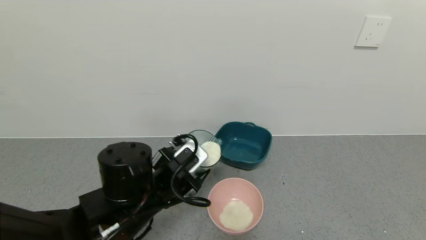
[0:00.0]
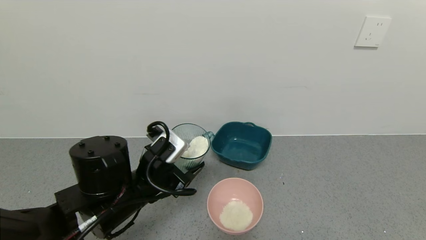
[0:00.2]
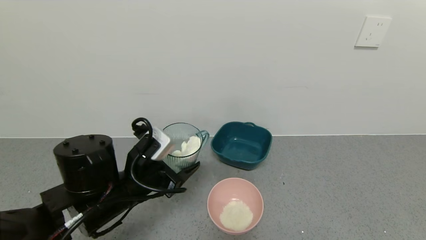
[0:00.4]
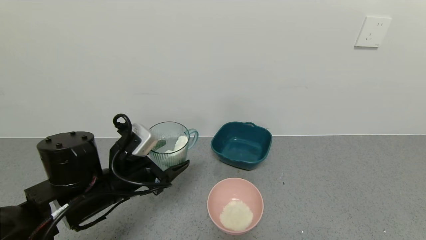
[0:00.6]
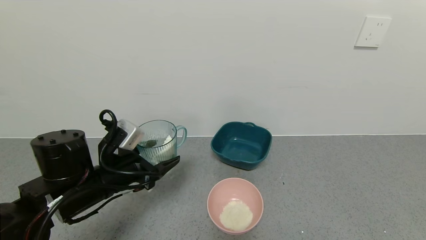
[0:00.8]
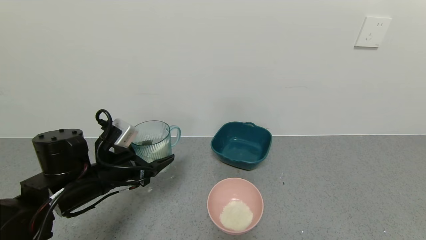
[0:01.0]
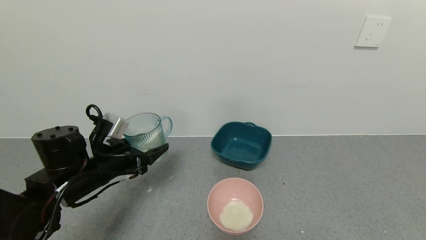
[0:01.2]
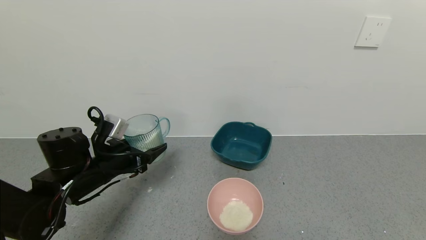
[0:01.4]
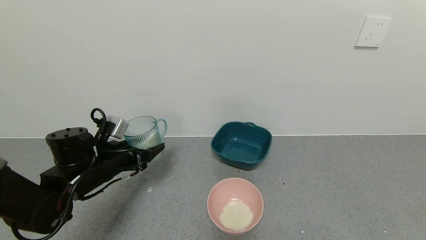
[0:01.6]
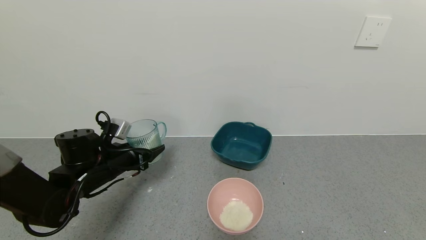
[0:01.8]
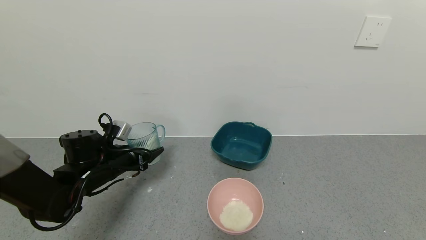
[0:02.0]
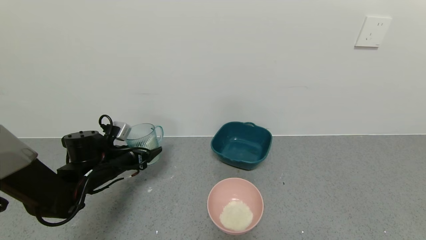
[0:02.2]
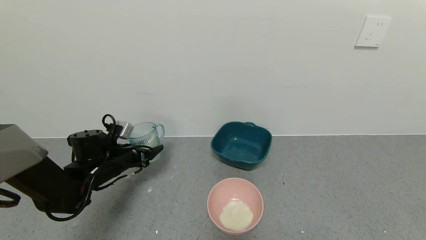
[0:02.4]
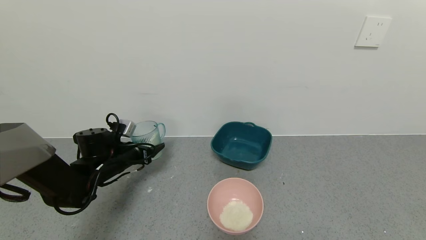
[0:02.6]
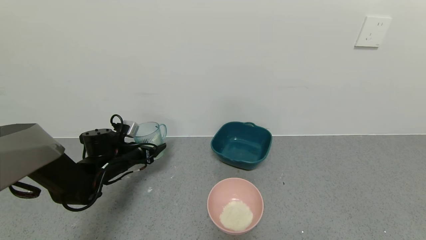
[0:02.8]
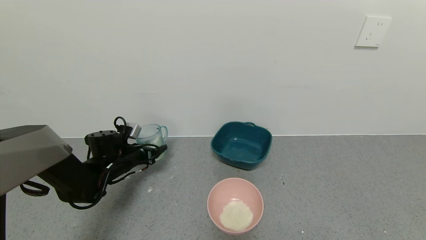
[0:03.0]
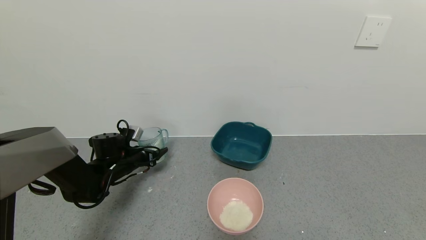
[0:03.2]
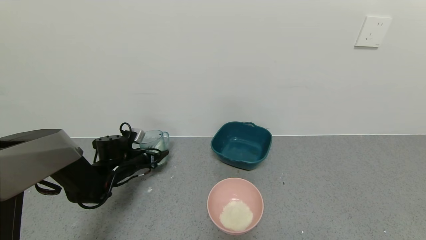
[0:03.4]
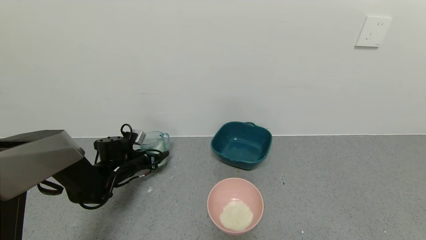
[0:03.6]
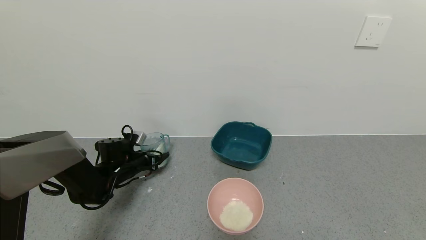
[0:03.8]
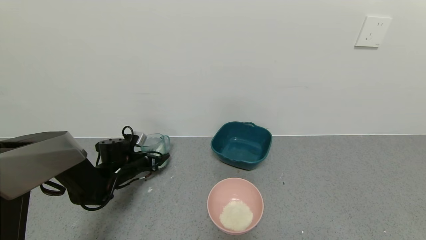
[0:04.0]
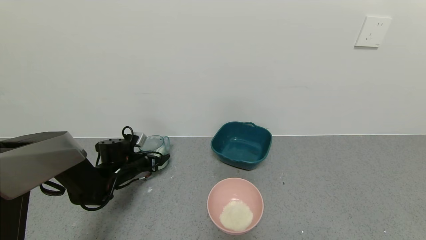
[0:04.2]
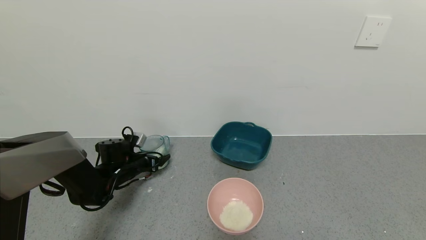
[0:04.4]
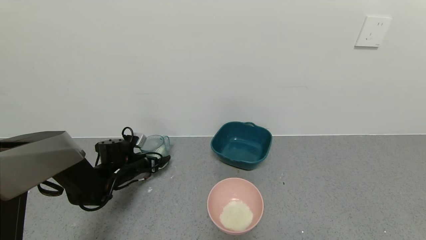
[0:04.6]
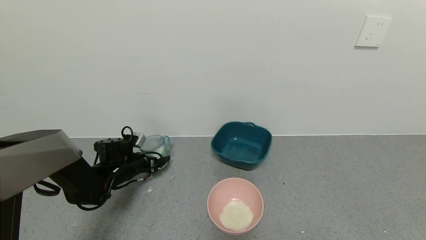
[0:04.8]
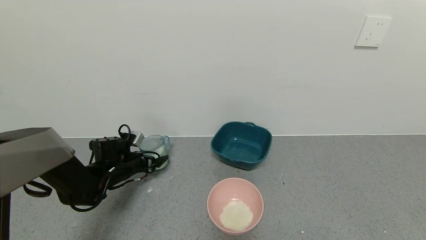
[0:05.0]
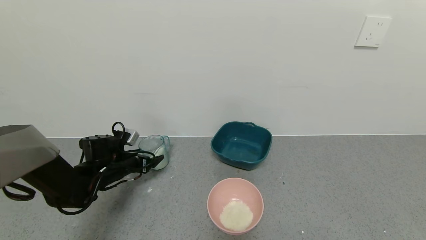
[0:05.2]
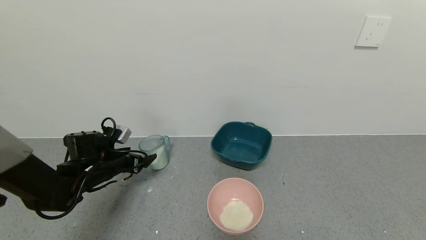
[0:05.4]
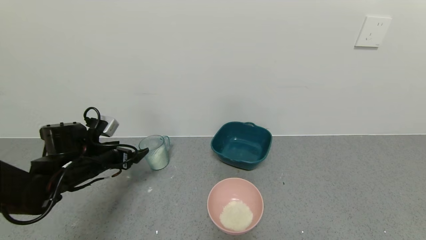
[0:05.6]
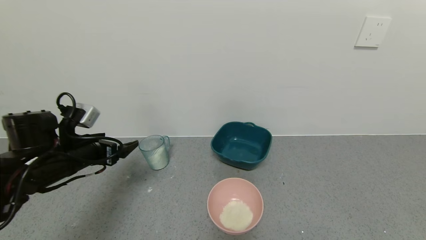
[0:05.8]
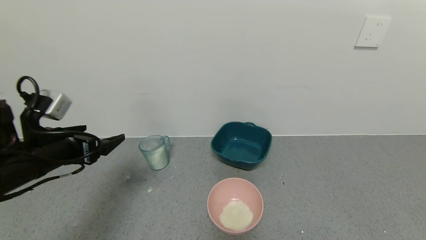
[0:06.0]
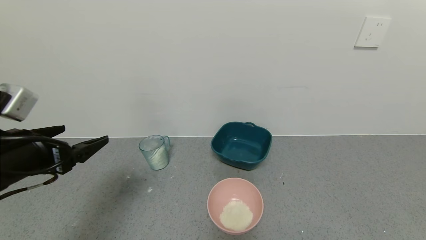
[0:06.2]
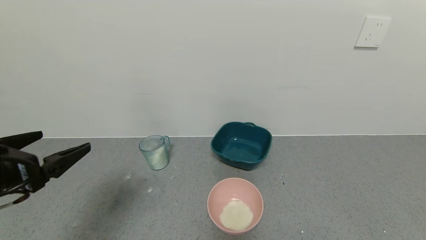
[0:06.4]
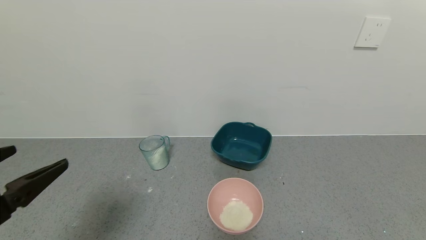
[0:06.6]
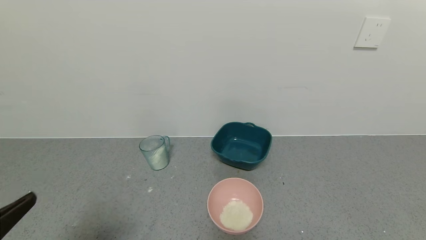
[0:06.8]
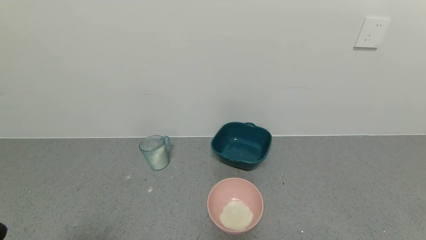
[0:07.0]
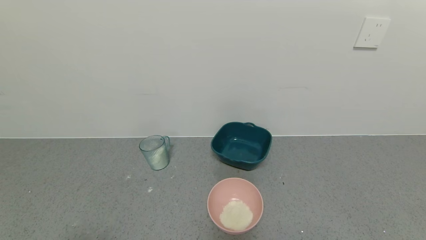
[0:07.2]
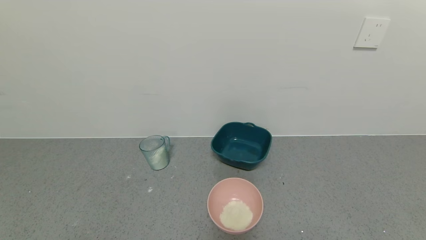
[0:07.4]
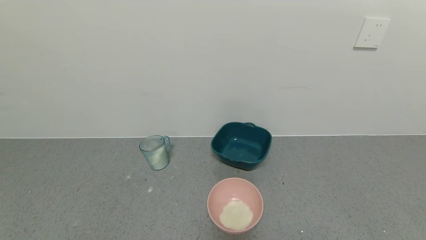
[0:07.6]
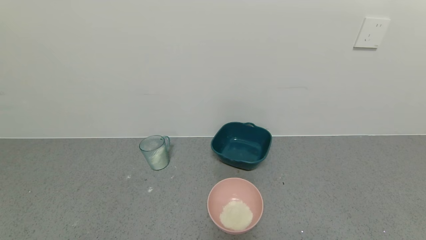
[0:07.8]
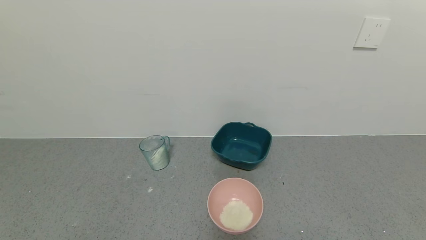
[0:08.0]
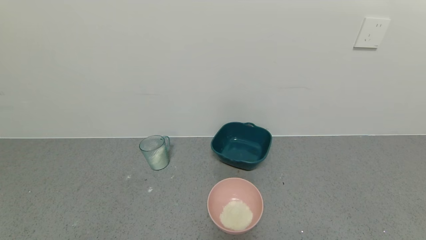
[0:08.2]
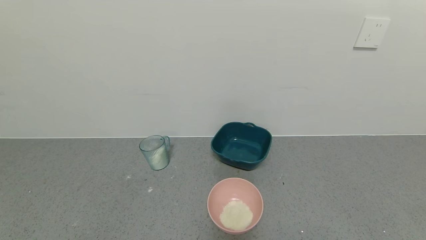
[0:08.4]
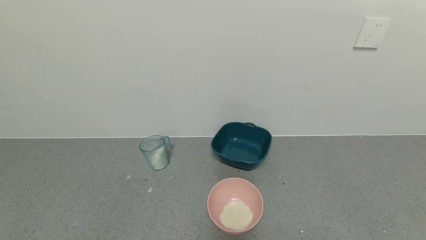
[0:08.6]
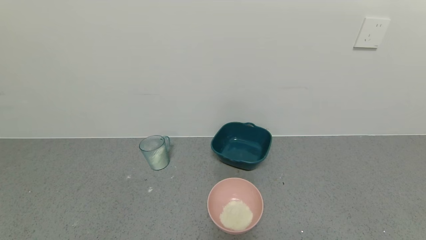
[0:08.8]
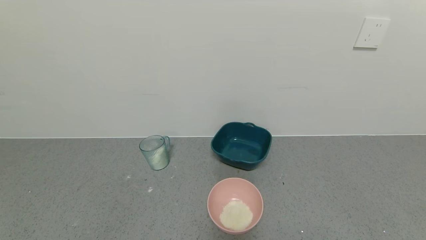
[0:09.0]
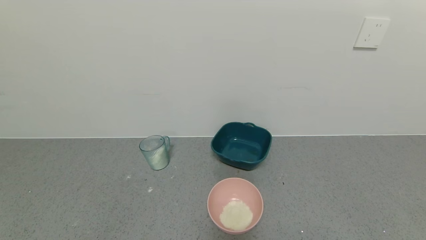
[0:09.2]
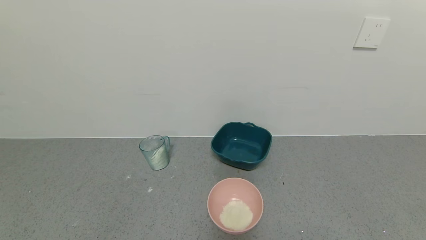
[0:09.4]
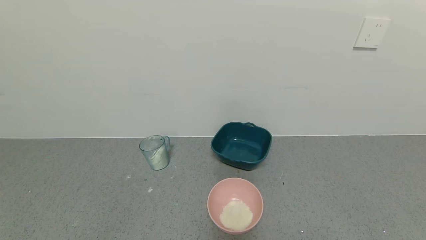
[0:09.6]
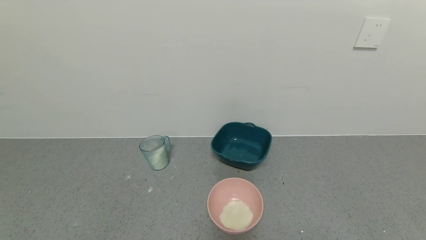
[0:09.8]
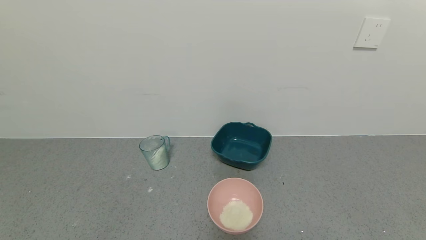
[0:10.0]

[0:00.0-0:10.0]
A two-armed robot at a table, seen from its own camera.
Task of the whole recording: use a gripper to pick up the cup and pour the powder into a bowl or tray.
Step, 0:00.0 to 0:05.2: Place the glass cup down with the left gripper.
0:00.0 to 0:01.4: The left gripper moves to the left and forward, some 15 cm.
0:01.4 to 0:02.8: The left gripper goes some 10 cm forward and downward.
0:02.8 to 0:04.2: The left gripper opens up.
0:04.2 to 0:05.8: The left gripper moves upward and backward, approximately 20 cm, and opens.
0:05.8 to 0:07.2: The left gripper is displaced backward by about 30 cm.
